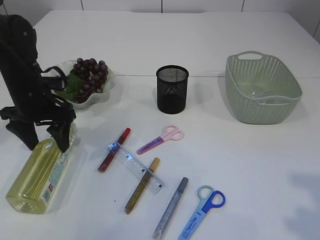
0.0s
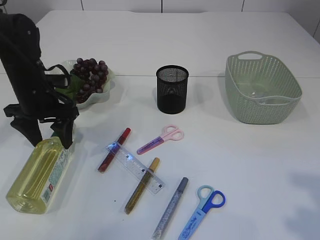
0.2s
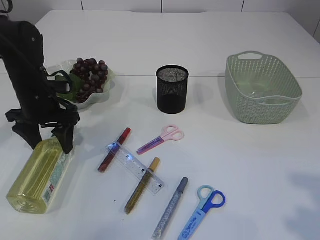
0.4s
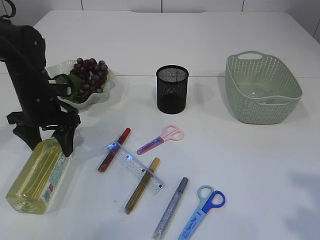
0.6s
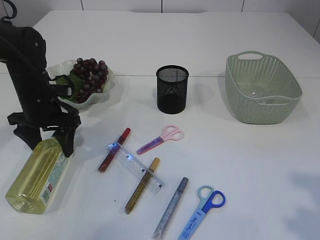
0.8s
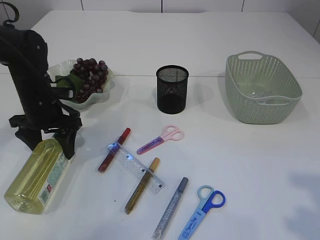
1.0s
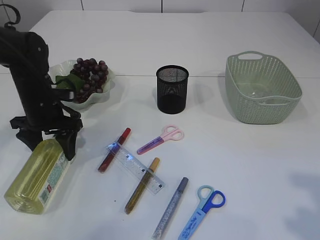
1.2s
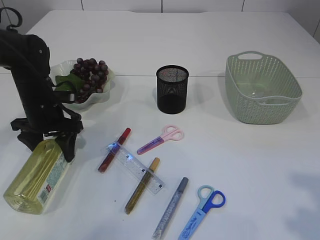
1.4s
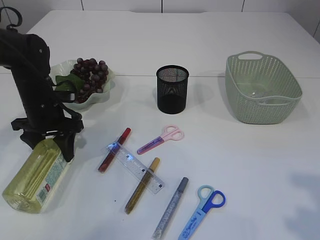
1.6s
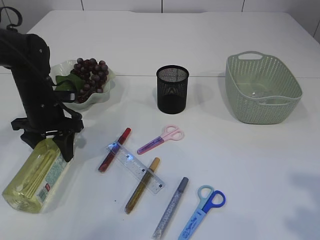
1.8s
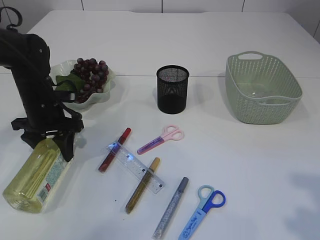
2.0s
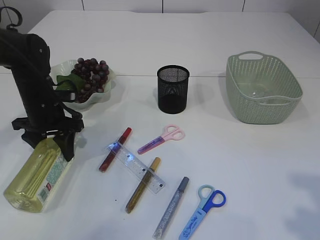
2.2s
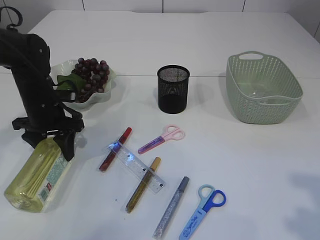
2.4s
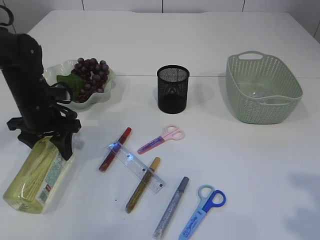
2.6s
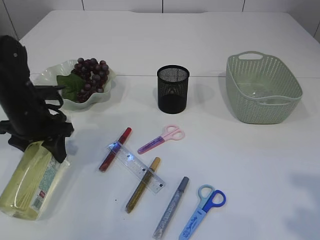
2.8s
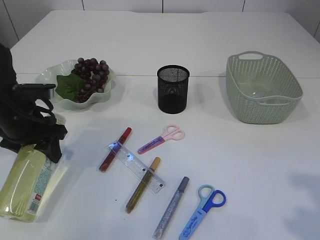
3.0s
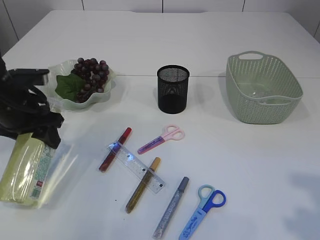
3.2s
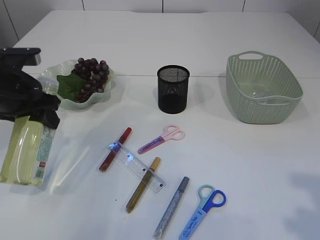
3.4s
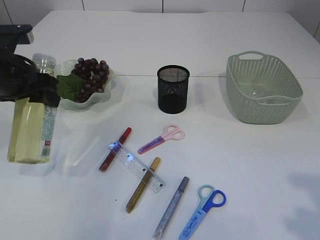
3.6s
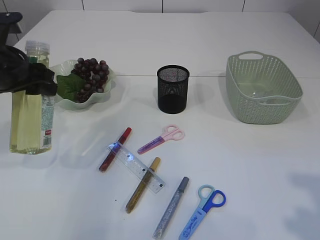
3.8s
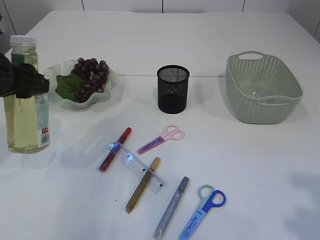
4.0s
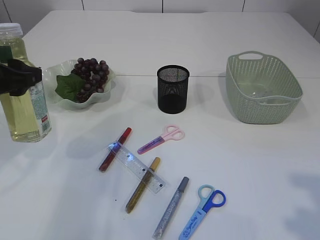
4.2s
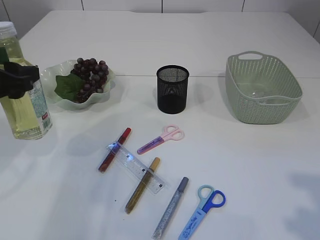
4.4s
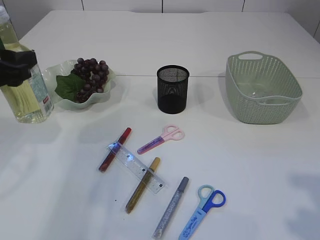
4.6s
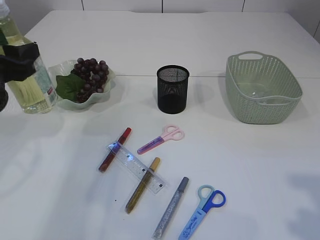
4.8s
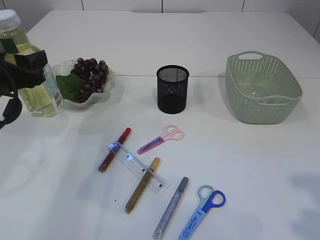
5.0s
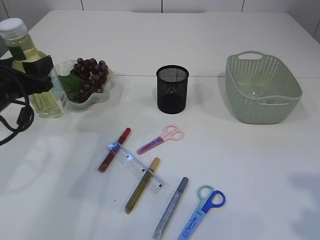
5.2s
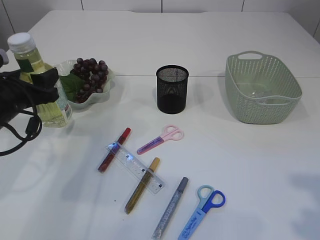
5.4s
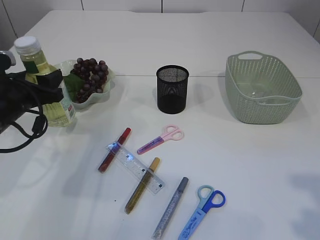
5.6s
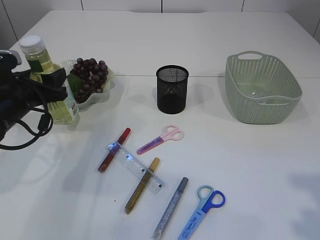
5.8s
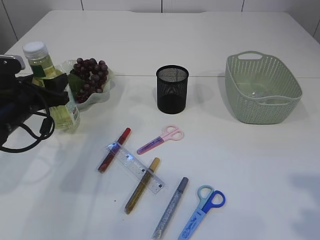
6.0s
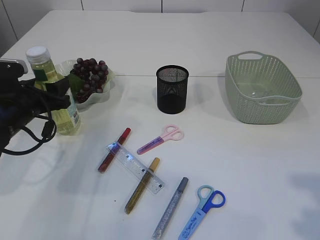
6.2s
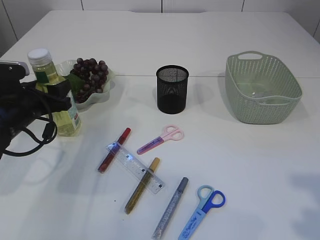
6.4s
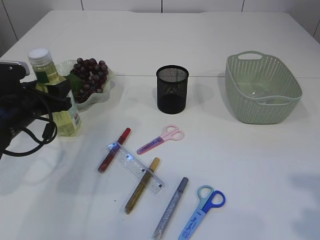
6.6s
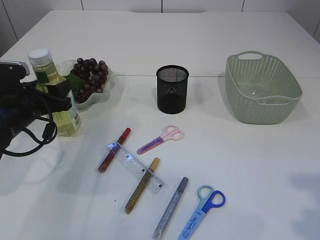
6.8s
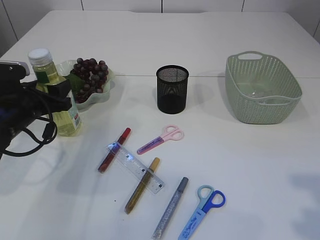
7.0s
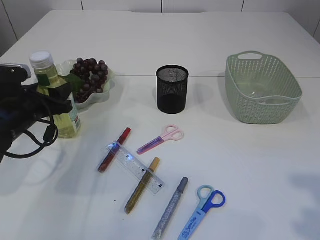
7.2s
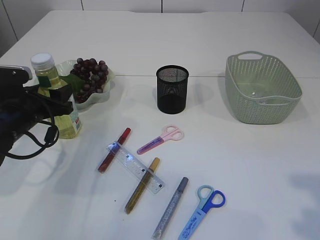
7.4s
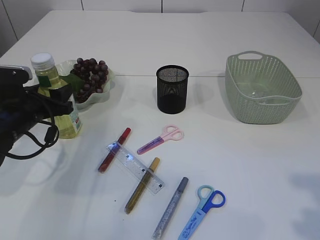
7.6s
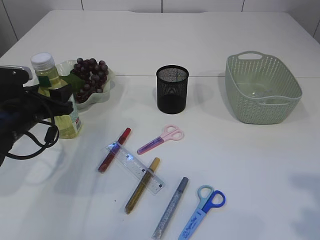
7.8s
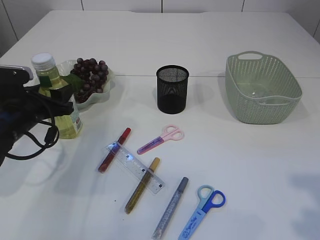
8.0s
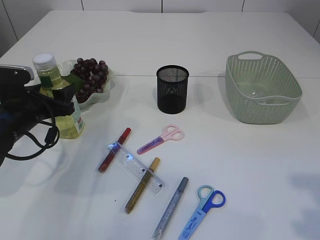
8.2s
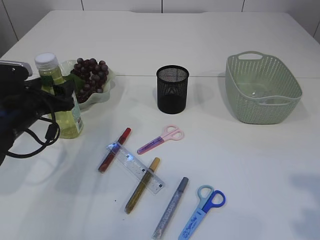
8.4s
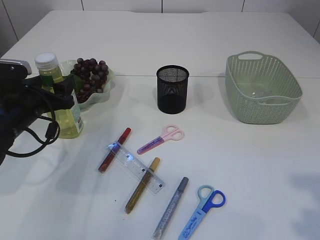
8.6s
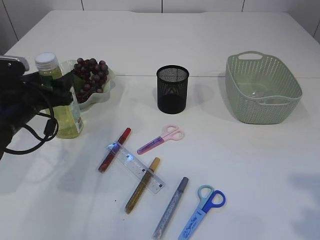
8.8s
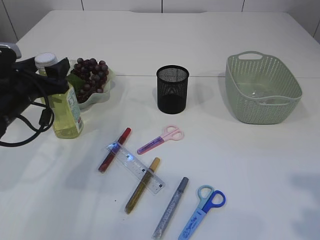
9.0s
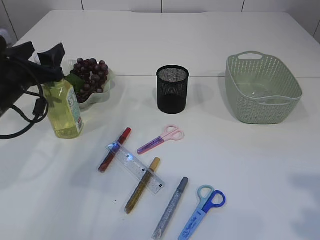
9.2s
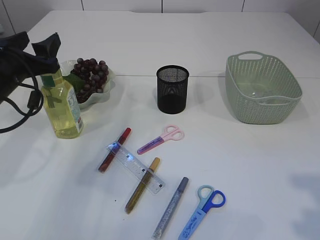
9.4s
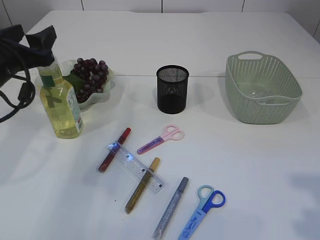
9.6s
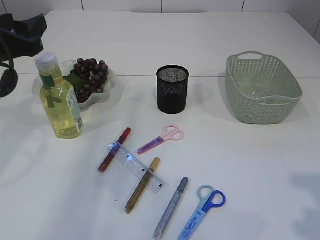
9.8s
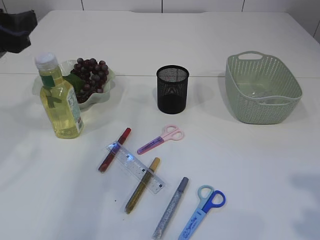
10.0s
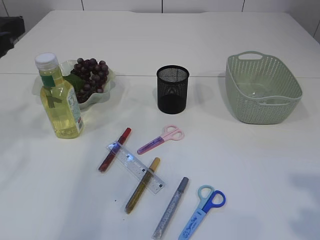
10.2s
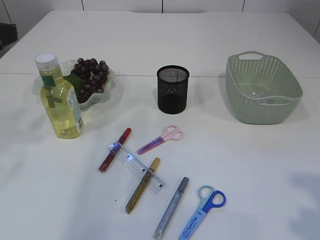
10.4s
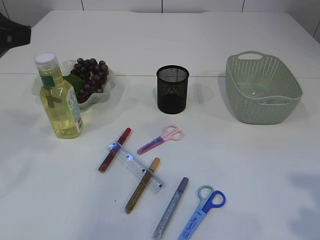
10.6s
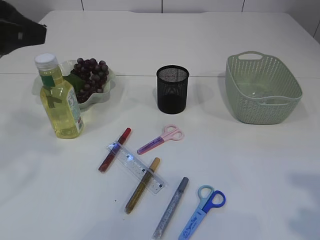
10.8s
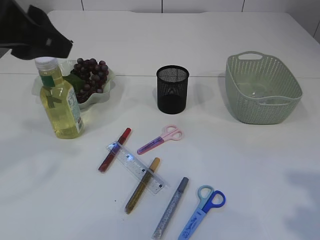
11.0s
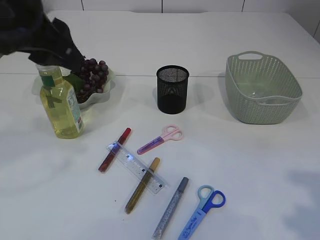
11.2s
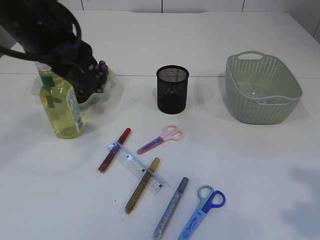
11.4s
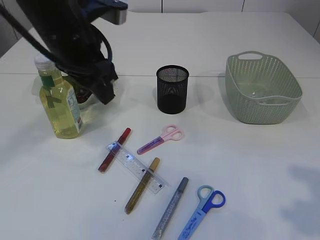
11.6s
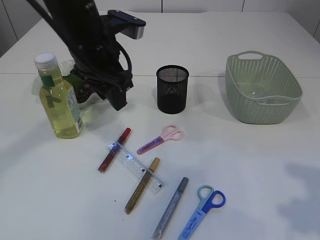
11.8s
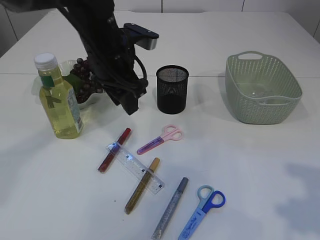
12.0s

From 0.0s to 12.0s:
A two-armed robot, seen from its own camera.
Step, from 0.0s to 3.6s: Pick up the bottle with the left arm.
Step, from 3.8s to 9.6s: Place the bottle.
From 0.0s to 1.6s: The grippers make only small movements.
From 1.6s to 3.0s: The left gripper is displaced backward by approximately 5 cm.
From 3.0s to 4.4s: The left gripper shifts approximately 10 cm upward and backward.
From 4.4s to 6.0s: The left gripper heads downward and forward, covering about 10 cm.
From 6.0s to 9.0s: The grippers make only small movements.
From 9.0s to 10.4s: The left gripper heads upward and backward, covering roughly 20 cm.
From 10.4s to 12.0s: The left gripper goes about 25 cm to the right, forward and downward.

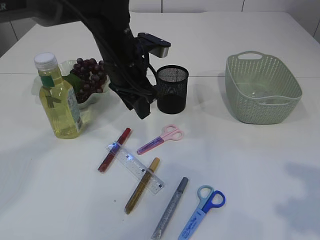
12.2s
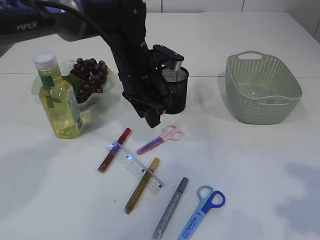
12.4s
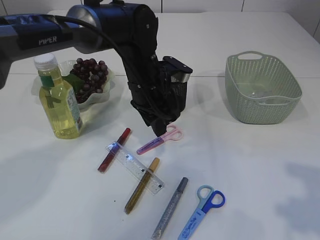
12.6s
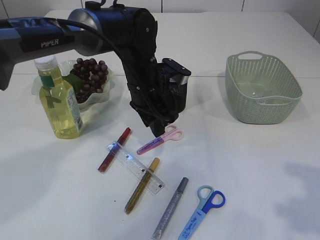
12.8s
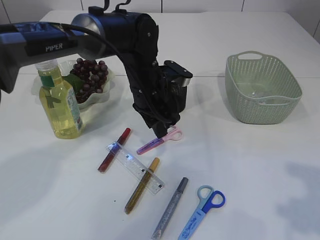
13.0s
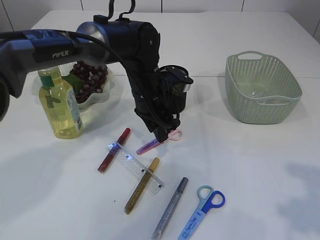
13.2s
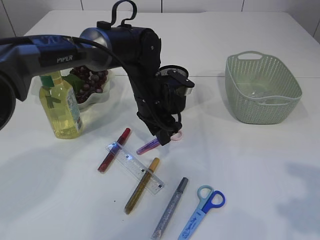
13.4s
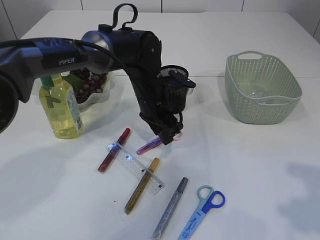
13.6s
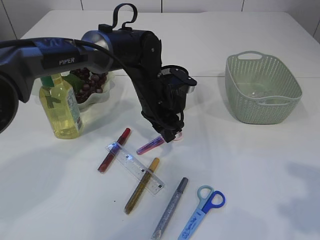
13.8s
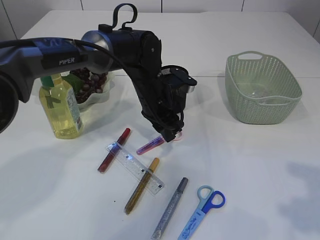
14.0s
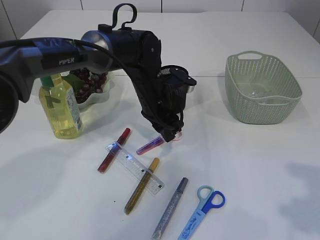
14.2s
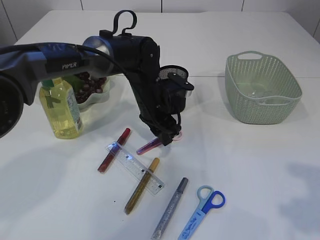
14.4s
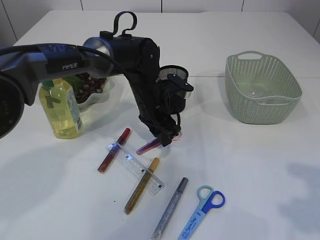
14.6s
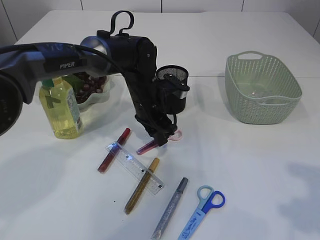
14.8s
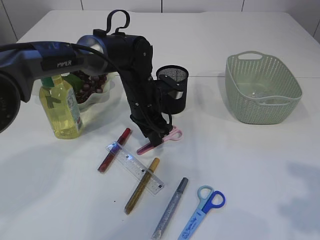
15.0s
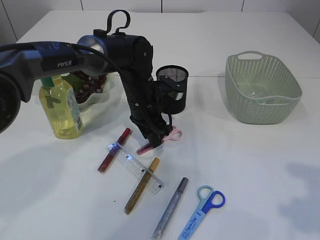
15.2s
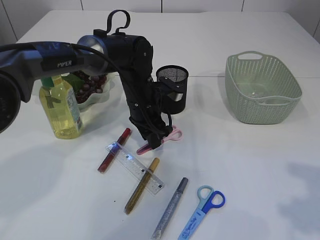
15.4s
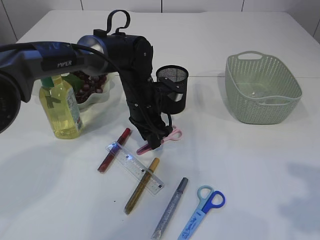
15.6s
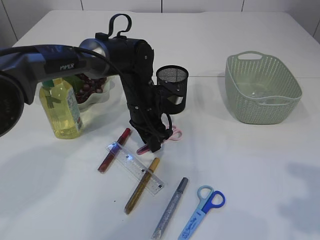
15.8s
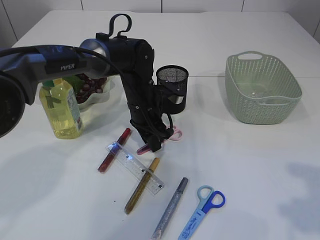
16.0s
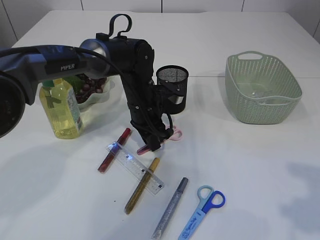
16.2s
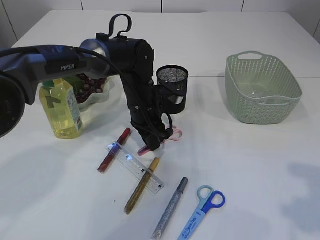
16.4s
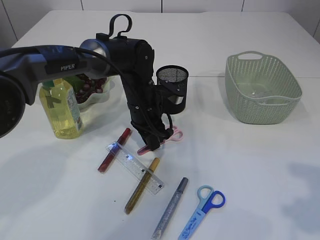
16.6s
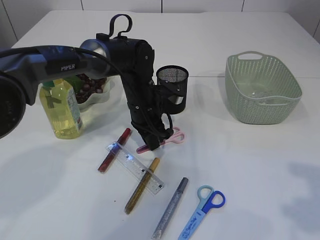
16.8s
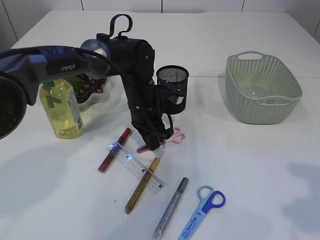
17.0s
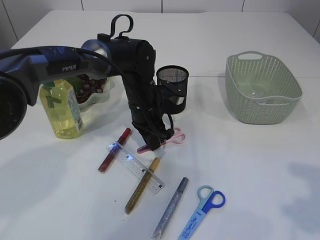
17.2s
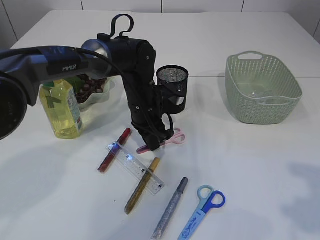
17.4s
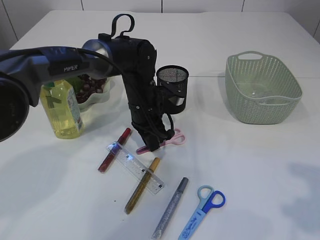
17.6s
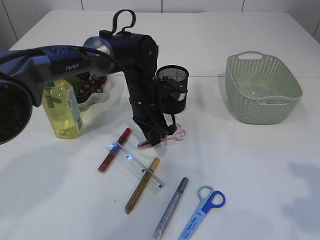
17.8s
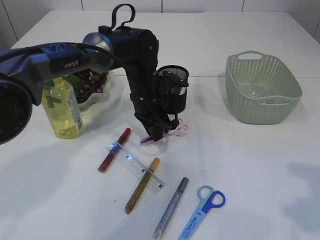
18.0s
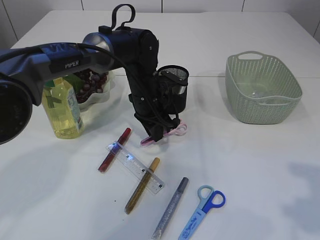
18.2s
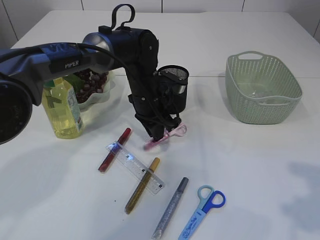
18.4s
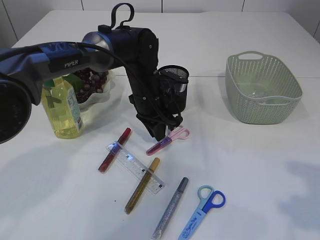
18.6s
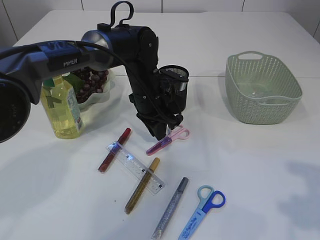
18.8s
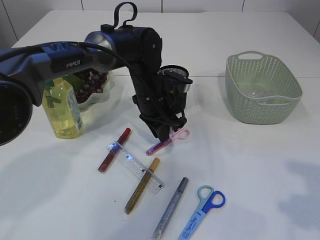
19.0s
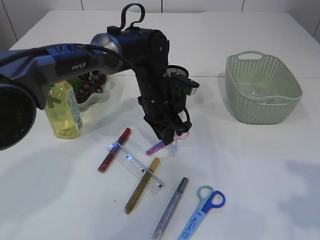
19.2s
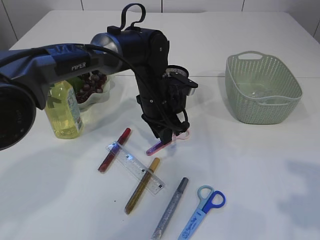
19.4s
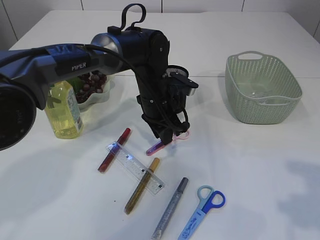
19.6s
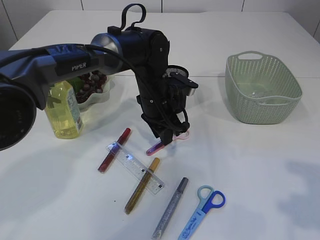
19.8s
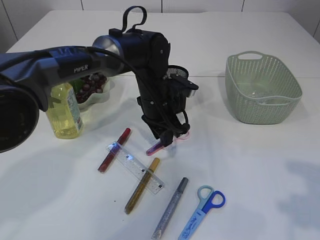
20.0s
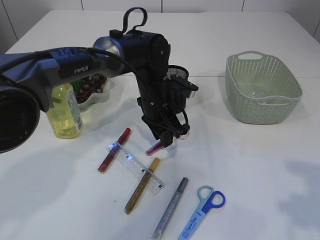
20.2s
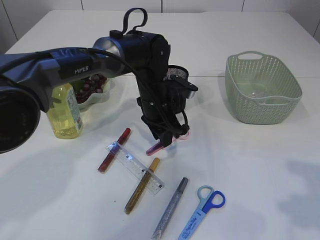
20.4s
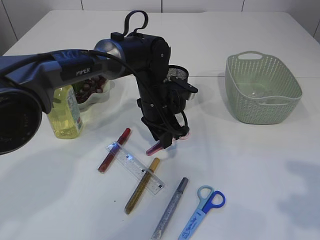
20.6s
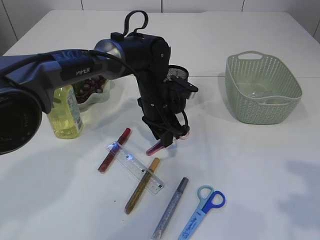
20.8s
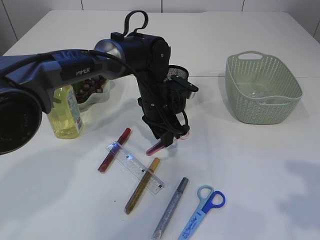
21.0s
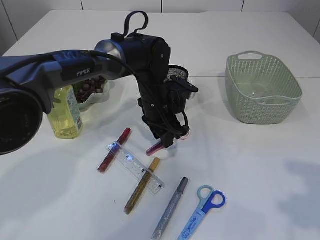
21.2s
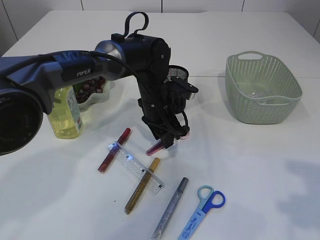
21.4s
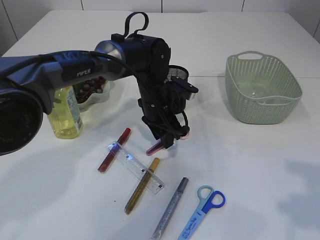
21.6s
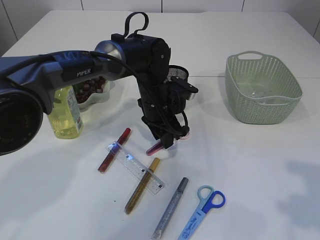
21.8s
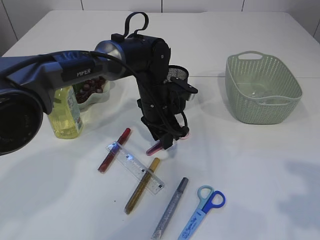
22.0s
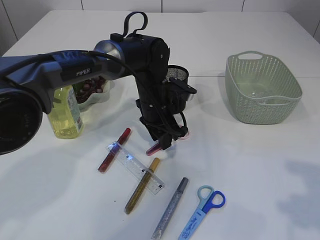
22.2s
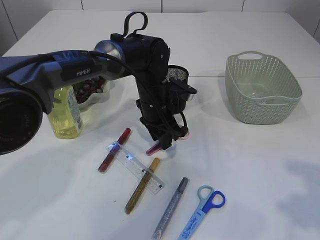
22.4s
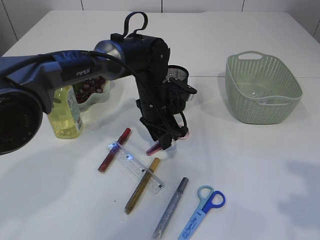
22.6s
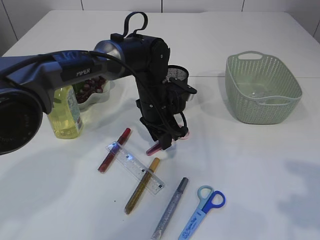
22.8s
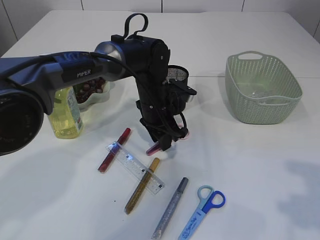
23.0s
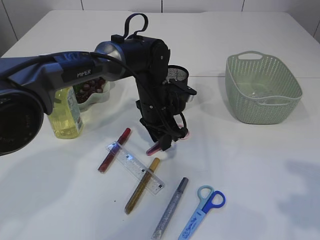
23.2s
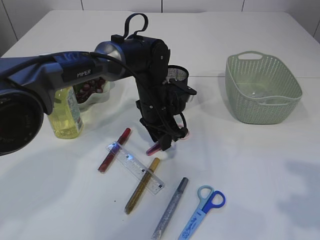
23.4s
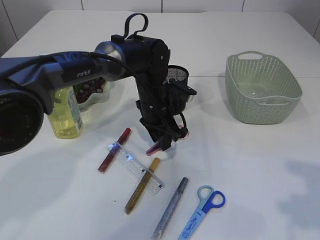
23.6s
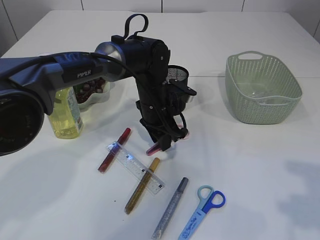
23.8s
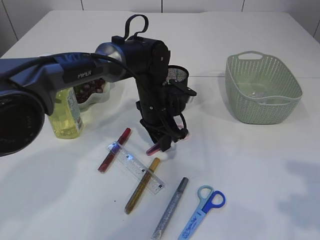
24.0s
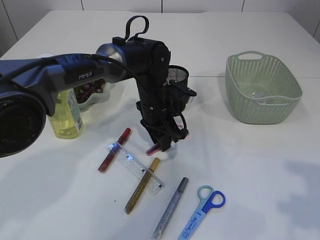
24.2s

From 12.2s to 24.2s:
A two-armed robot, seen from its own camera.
From 12.2s to 13.8s: The left gripper heads downward, covering some 10 cm.
From 13.8s to 15.2s: The grippers make only small movements.
From 15.2s to 16.6s: Both grippers stay about where they are.
From 16.6s to 19.8s: The grippers make only small movements.
From 19.8s to 22.6s: Both grippers stay put.
From 22.6s to 24.2s: Both grippers stay about where they are.
